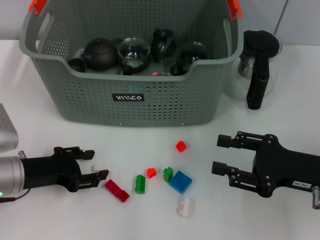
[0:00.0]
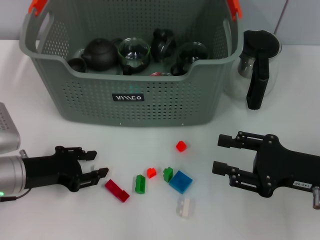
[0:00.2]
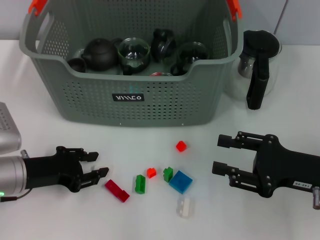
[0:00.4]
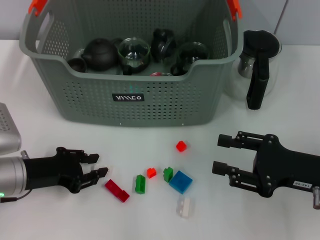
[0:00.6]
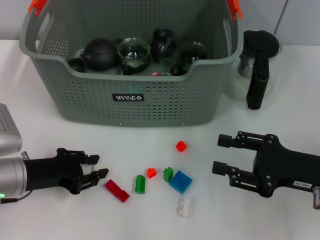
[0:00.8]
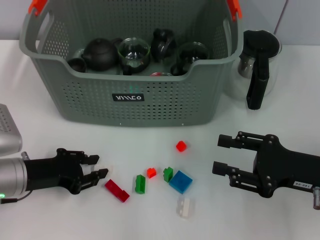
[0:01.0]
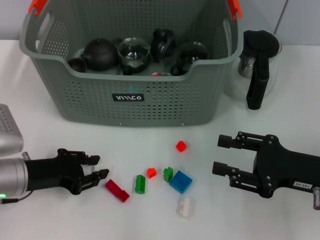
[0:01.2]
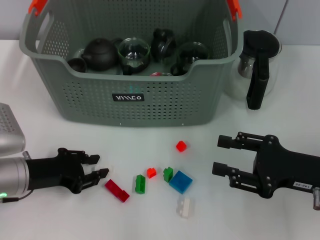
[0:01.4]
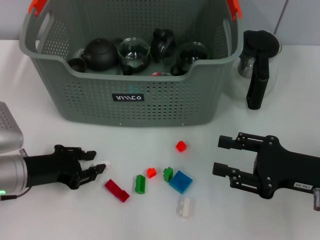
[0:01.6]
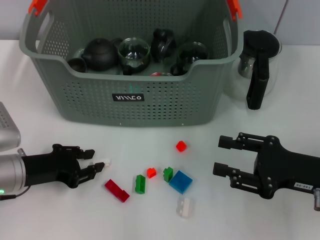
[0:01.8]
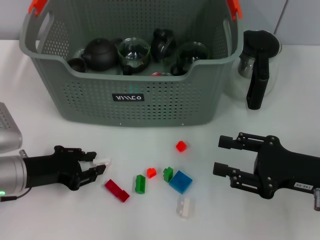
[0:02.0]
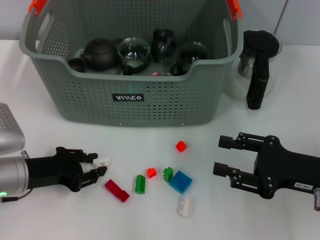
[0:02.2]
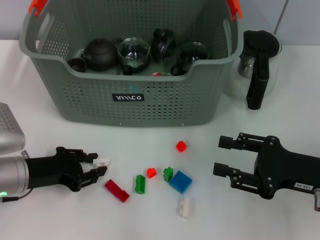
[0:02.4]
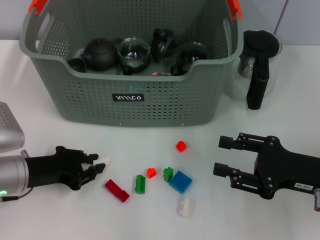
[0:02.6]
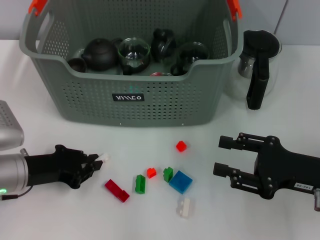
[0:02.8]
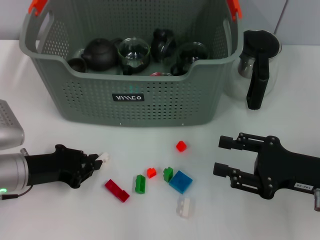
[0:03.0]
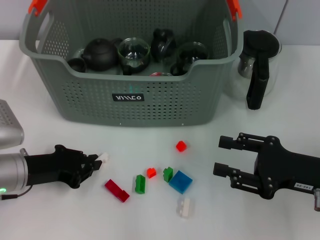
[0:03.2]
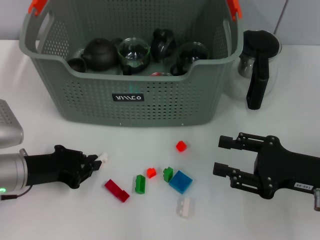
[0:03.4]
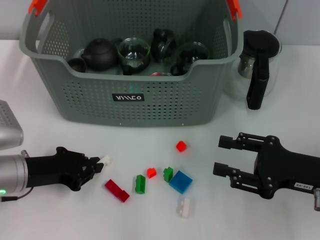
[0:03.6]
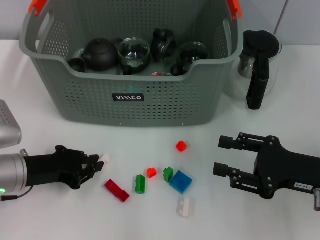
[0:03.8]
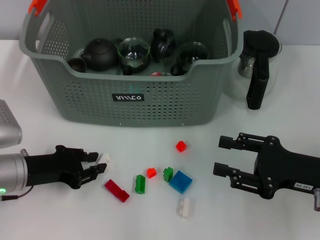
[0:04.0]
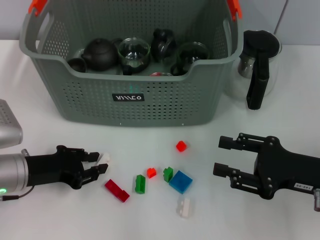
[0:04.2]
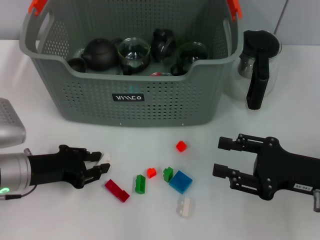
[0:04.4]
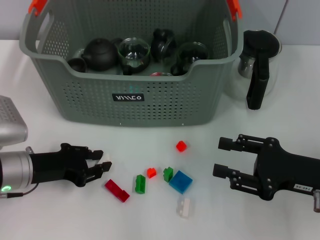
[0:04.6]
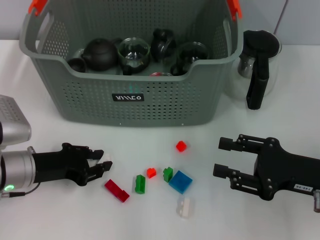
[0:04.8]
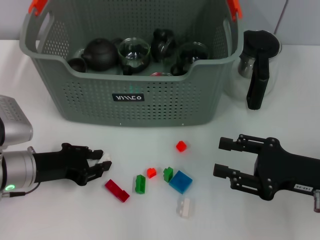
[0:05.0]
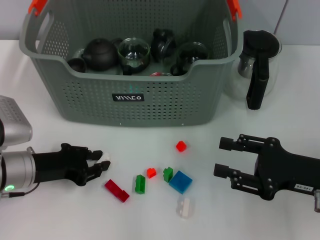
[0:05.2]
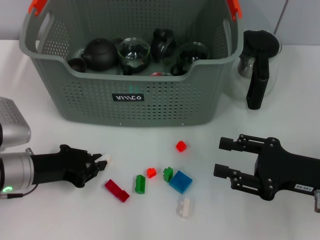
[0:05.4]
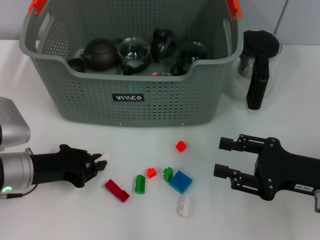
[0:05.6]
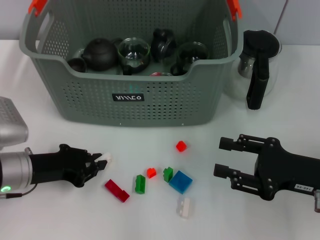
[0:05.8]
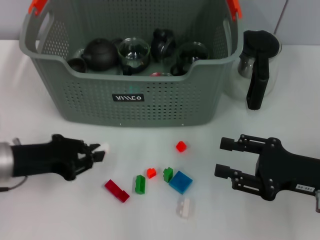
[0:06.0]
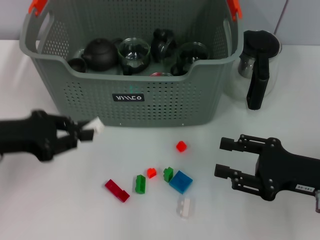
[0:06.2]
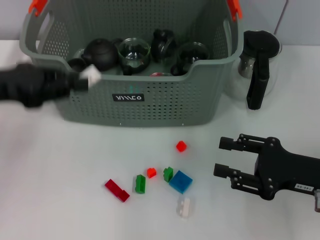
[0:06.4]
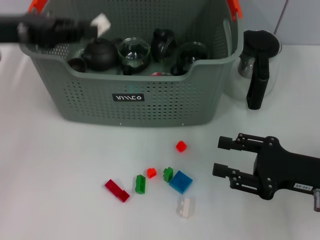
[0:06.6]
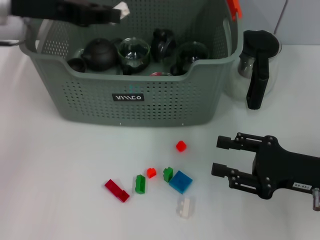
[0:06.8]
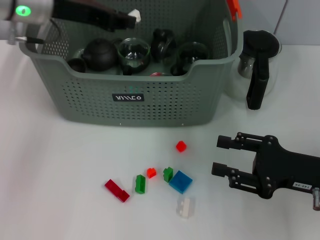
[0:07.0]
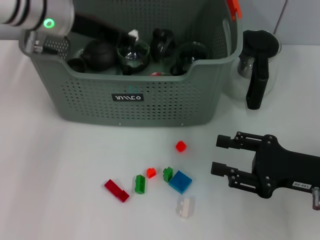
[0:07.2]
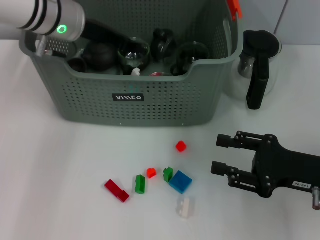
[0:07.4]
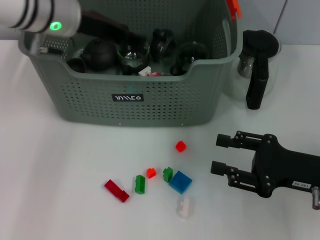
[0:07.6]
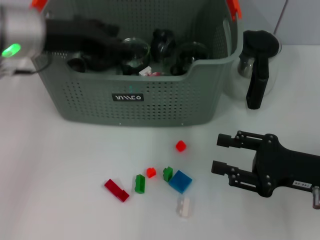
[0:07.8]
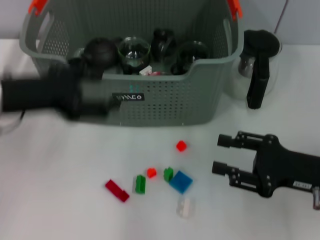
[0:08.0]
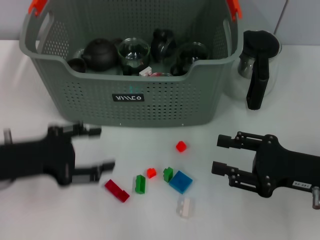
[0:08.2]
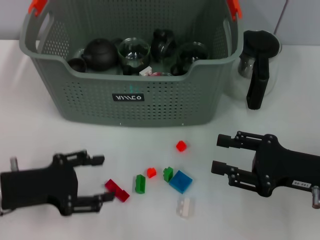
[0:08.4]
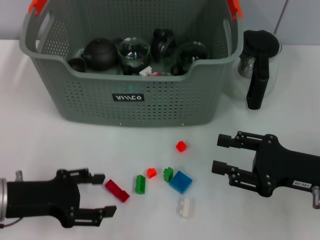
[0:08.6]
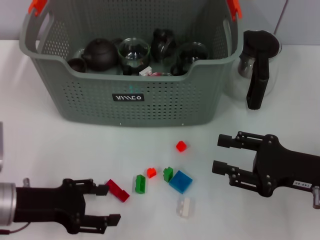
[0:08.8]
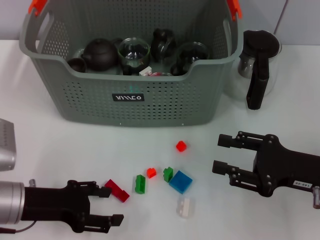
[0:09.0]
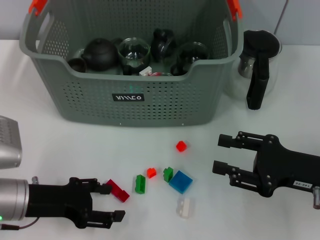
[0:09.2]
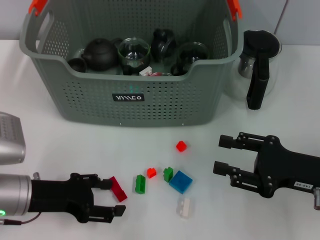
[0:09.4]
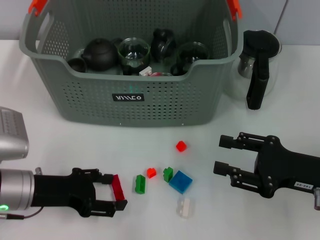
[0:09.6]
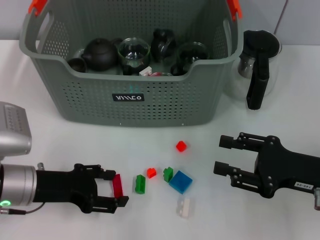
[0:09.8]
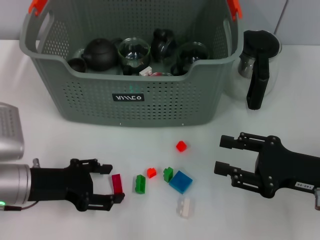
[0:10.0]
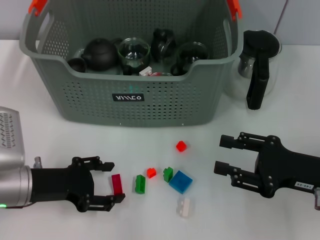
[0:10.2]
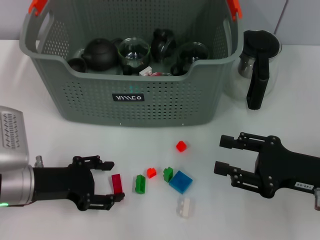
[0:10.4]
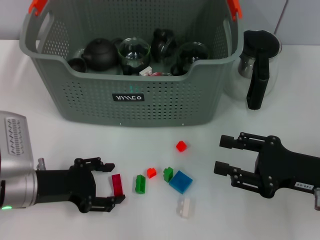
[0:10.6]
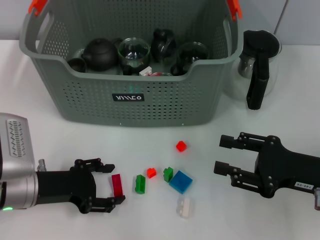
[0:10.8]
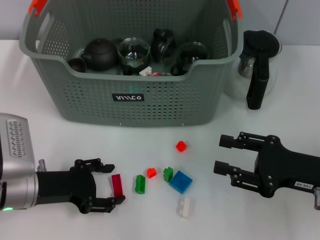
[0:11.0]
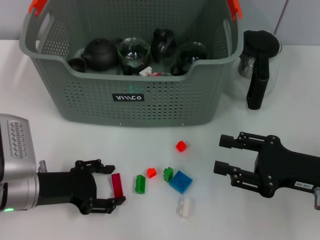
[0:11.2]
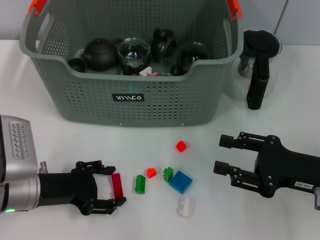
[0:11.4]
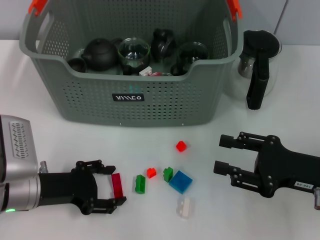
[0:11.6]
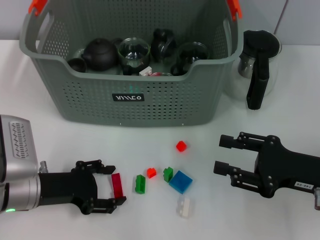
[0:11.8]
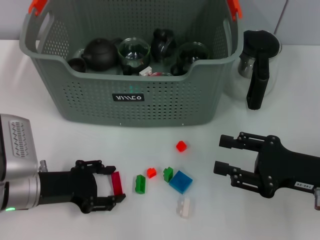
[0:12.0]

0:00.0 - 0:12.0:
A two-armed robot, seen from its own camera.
Task of the whole recording: pick up the teacup on the table and place it into the storage bin, pick up the block on the table and place it into the storage bin.
Step, 0:00.0 - 0:05.4: Grasp the white block with left gripper.
Step, 0:05.6 - 0:07.6: Place the white block in the storage box with left gripper.
0:00.0 - 0:04.4: Both grippers stay about where they are.
0:04.4 - 0:06.0: The grippers stay close to where they were, moving slightly.
0:06.0 - 0:07.6: The left gripper travels forward, upward and to the right by some 20 cm.
0:07.6 - 0:09.0: The left gripper heads backward, downward and to the left, covering about 25 cm, and opens.
0:09.0 - 0:12.0: The grippers stay close to where they were, moving slightly.

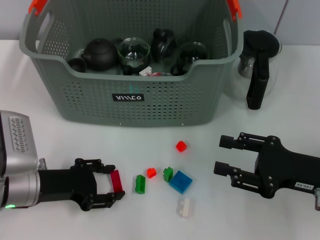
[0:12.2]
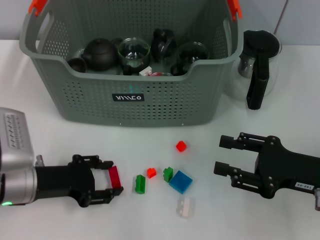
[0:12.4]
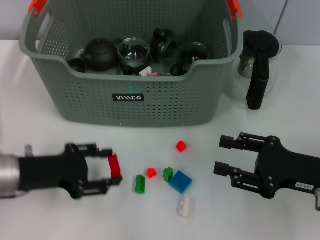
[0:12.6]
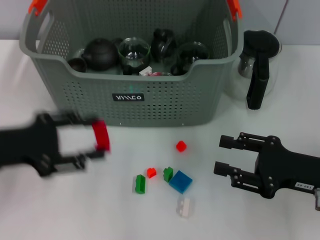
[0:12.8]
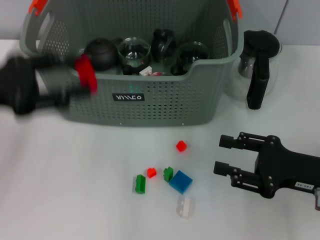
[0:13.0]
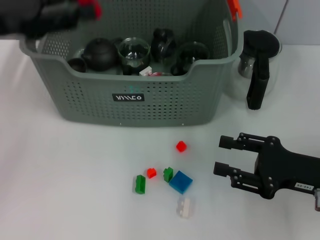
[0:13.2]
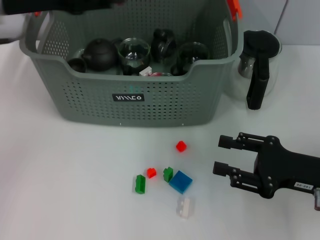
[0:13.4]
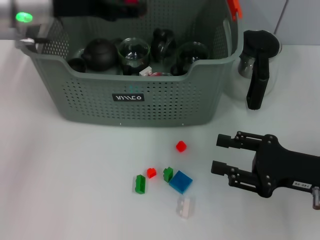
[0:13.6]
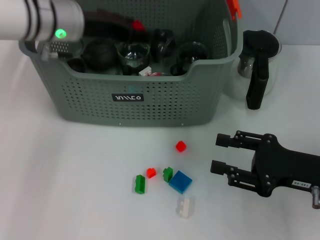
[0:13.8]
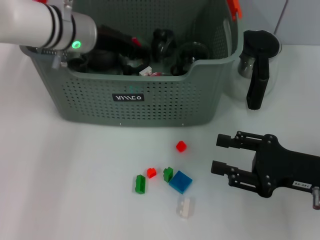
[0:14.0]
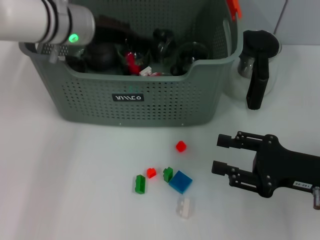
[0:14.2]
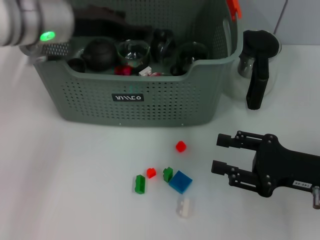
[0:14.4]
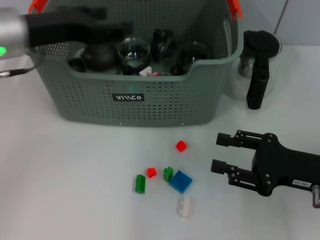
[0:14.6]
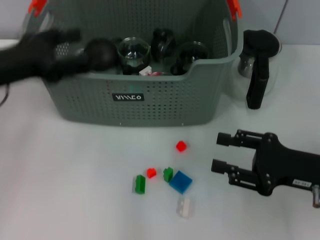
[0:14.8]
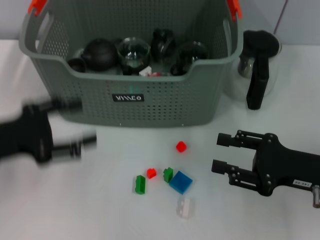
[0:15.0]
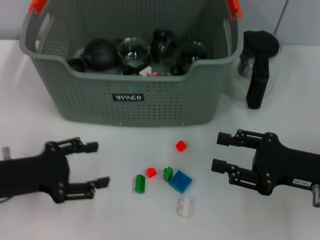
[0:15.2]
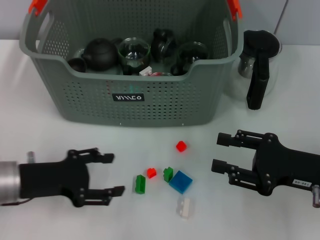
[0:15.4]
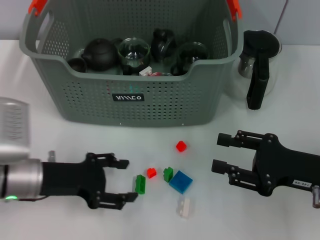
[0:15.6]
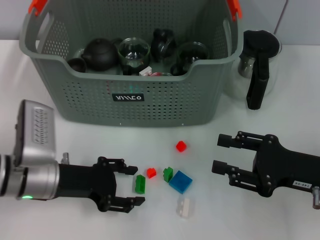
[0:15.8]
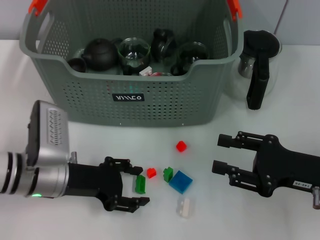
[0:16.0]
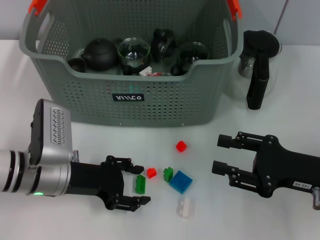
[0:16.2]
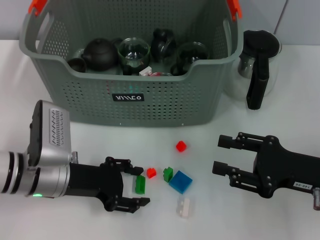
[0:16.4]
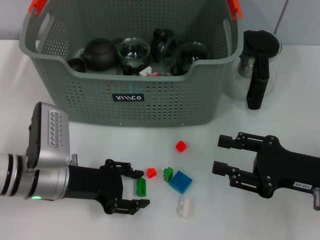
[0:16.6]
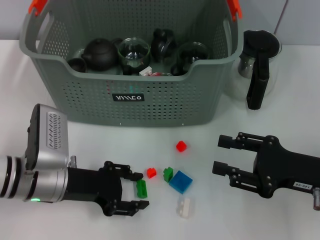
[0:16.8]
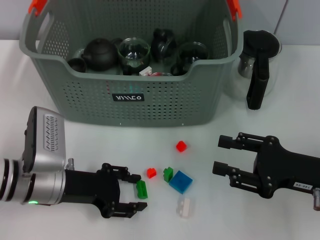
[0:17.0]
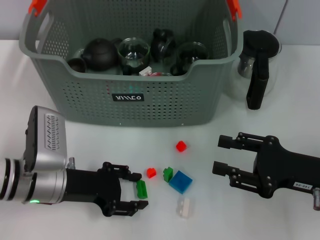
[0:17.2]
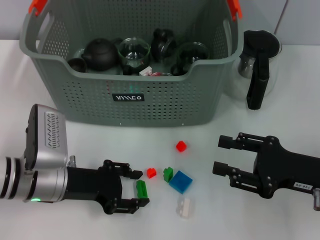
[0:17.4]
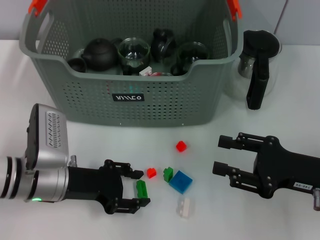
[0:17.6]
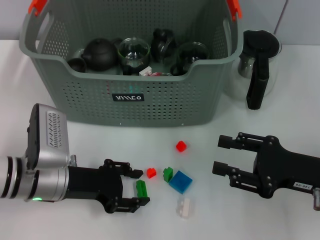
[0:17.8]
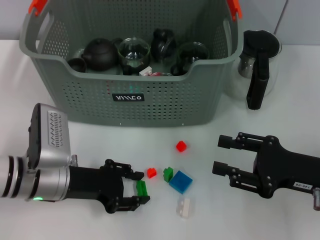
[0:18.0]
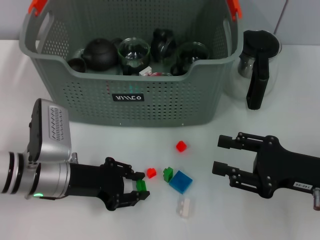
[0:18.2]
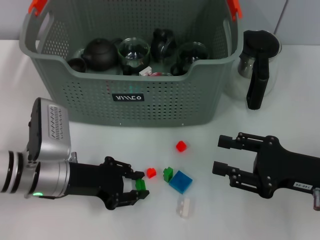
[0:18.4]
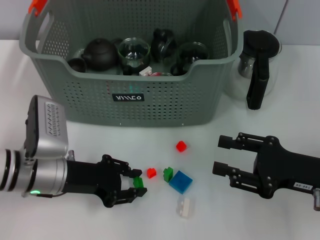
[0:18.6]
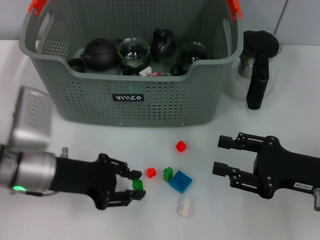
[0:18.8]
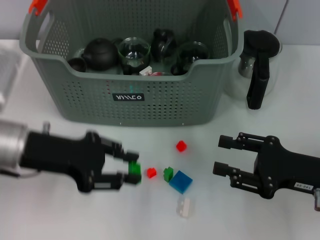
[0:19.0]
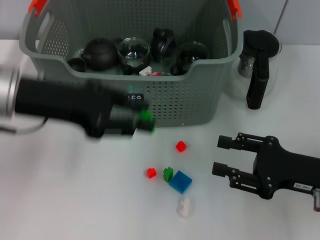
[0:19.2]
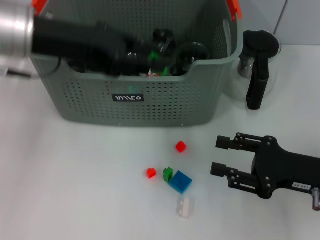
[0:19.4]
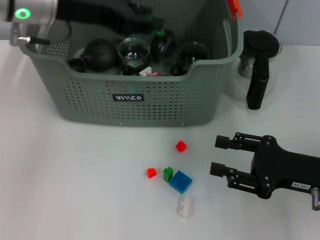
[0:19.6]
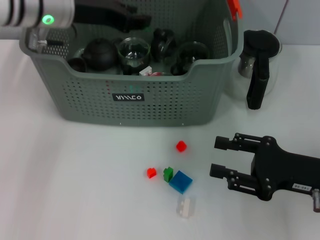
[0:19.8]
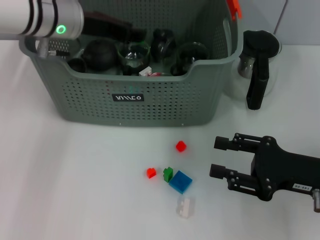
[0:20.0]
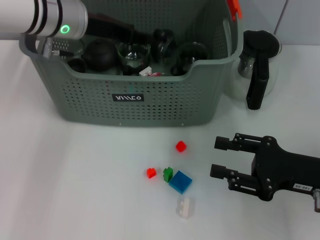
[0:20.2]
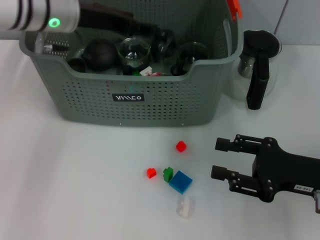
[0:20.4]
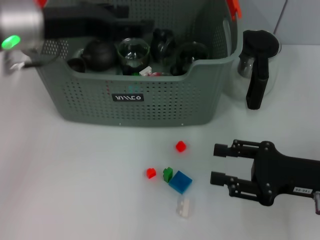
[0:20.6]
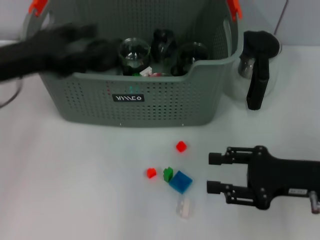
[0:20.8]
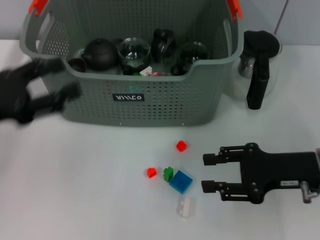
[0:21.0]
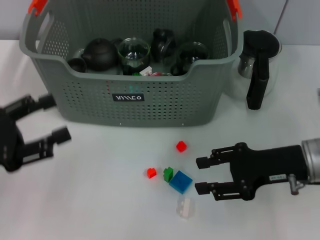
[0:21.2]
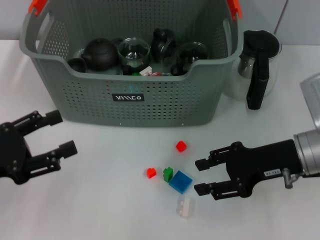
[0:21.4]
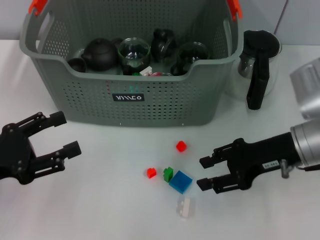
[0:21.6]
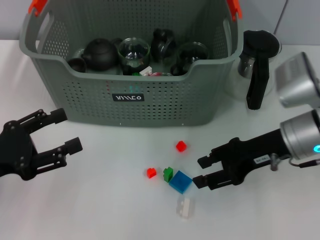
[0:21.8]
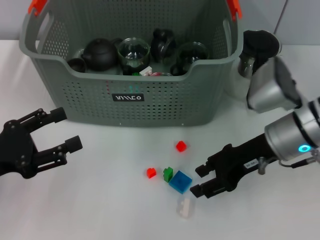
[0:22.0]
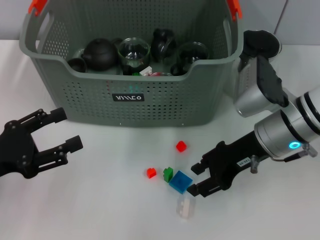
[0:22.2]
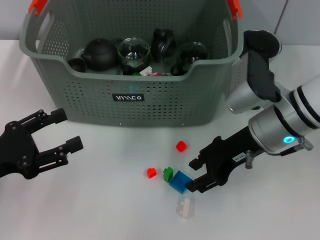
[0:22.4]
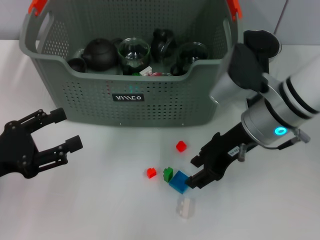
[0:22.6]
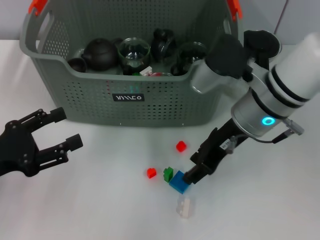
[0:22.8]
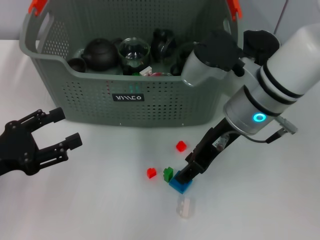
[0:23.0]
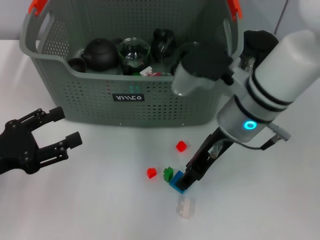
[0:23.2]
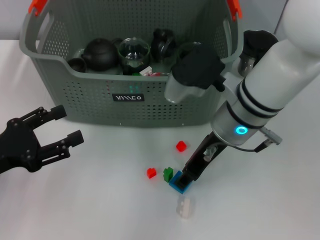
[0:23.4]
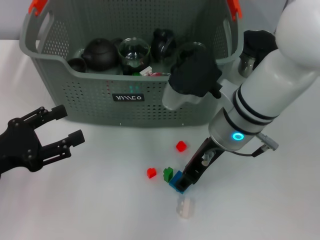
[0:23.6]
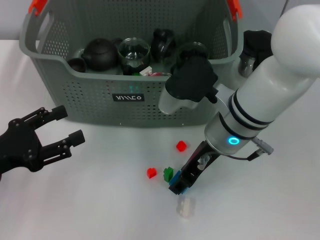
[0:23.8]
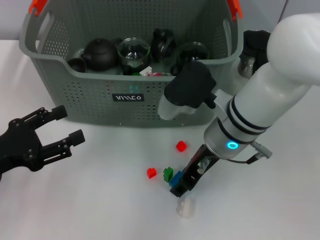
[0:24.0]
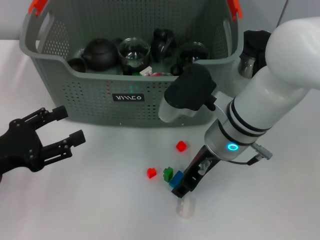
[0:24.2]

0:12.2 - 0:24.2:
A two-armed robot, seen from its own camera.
Task of the whole recording: pick up the teacup on the table and place it into the storage bin, pick up the block on the table and place it into the storage bin.
Step, 0:12.4 - 0:14.2: Place the red block in the storage box with left gripper.
Step, 0:14.4 - 0:18.2: Grasp the green block with left gripper.
Step, 0:18.4 - 0:20.4: Place the green block in the storage box with left gripper.
0:12.2 - 0:13.8: The left gripper is displaced forward, upward and to the right by some 25 cm.
0:13.8 - 0:15.2: The left gripper moves backward, to the left and downward, approximately 25 cm.
0:15.2 - 0:16.6: The left gripper is displaced to the right by some 10 cm.
0:16.6 - 0:18.2: Both grippers stay put.
0:18.2 - 0:19.8: The left gripper heads upward and forward, covering approximately 20 cm.
0:19.8 - 0:21.2: The right gripper shifts by about 5 cm. The left gripper travels backward, to the left and downward by about 25 cm, and opens its fingers.
0:21.2 - 0:22.6: The right gripper travels to the left and forward by some 10 cm.
0:22.6 - 0:24.2: The right gripper heads to the left, covering some 5 cm.
